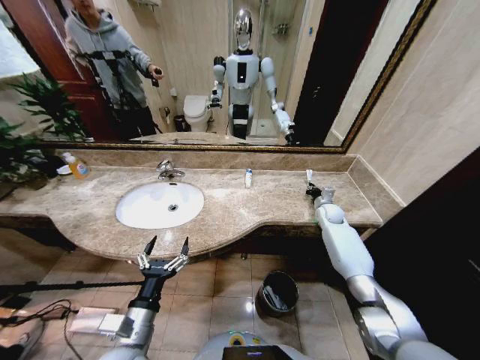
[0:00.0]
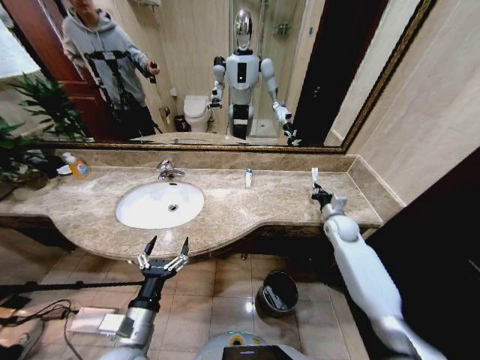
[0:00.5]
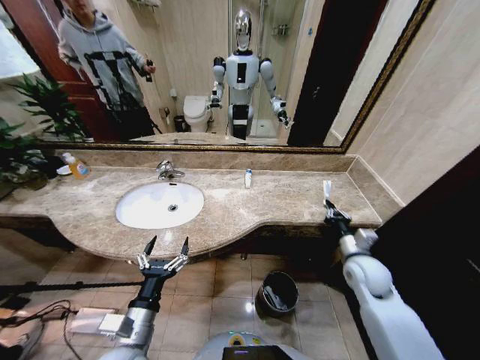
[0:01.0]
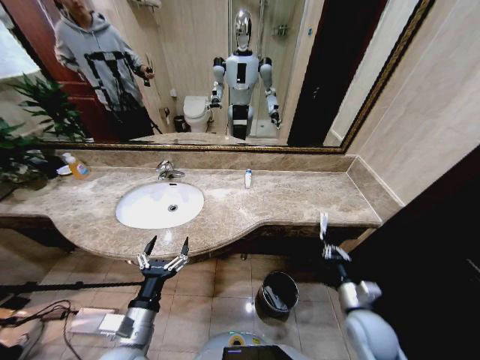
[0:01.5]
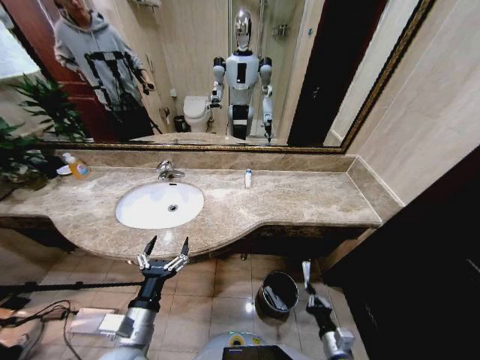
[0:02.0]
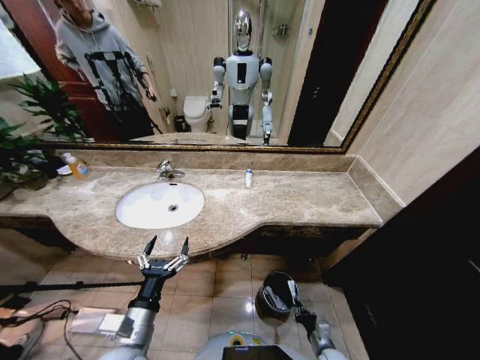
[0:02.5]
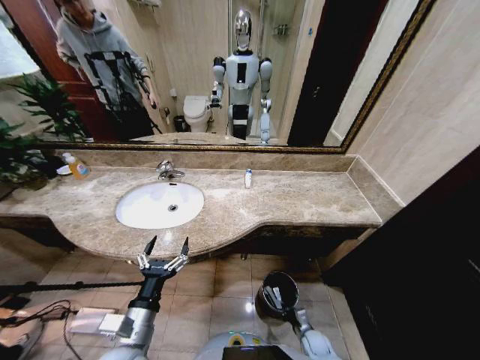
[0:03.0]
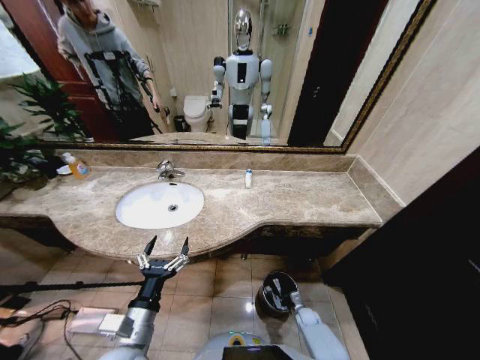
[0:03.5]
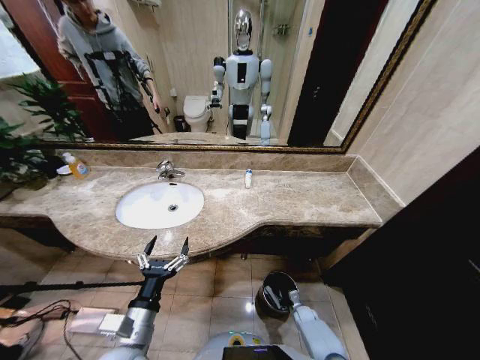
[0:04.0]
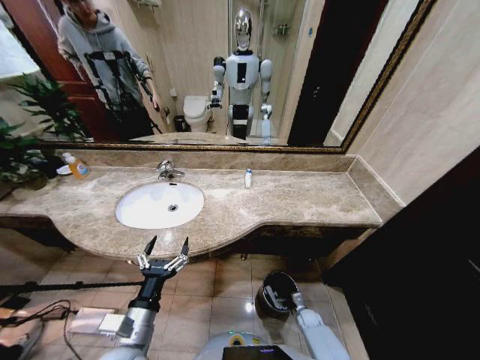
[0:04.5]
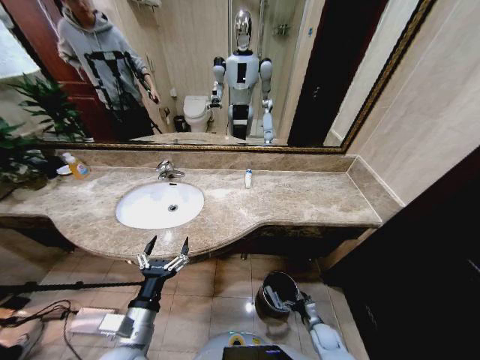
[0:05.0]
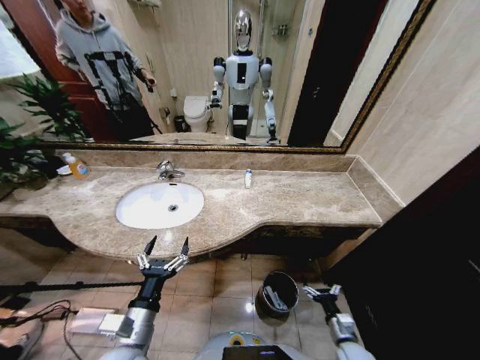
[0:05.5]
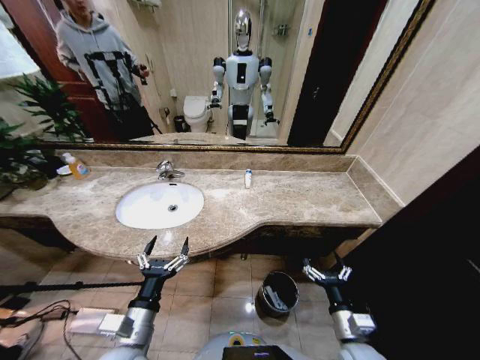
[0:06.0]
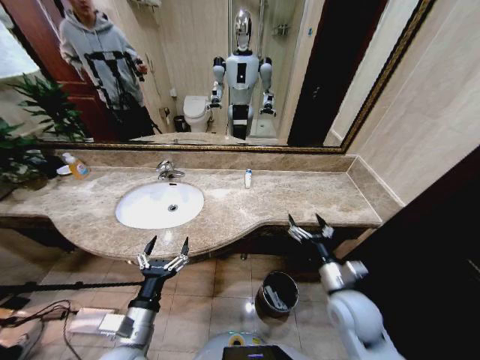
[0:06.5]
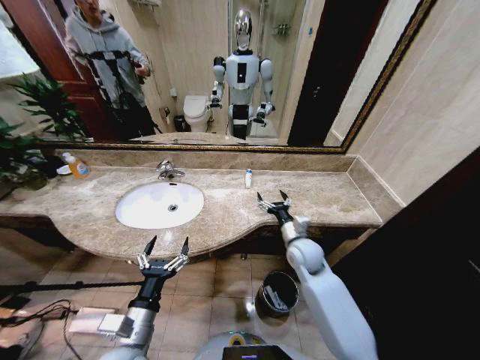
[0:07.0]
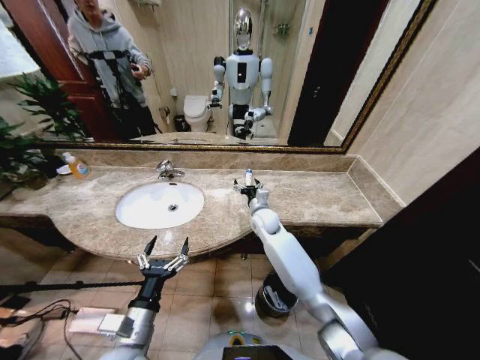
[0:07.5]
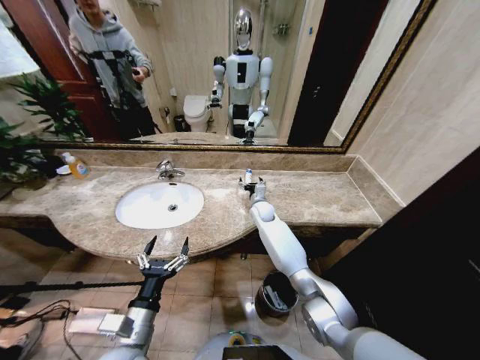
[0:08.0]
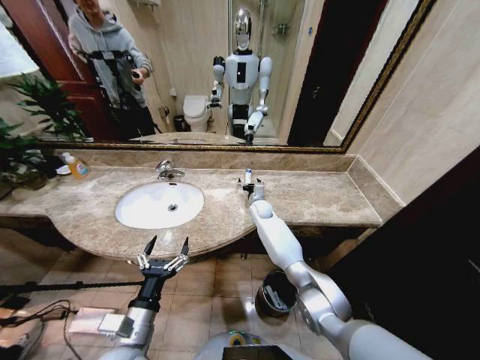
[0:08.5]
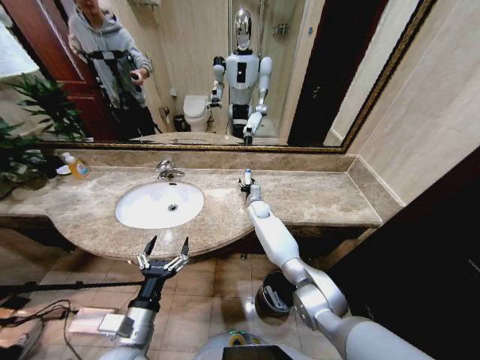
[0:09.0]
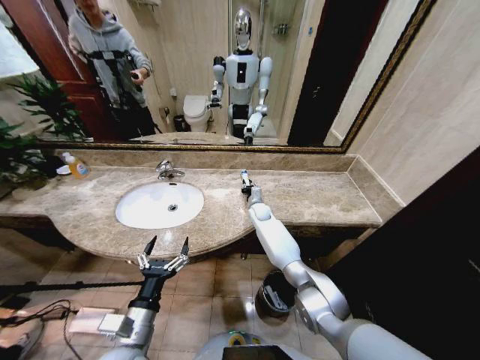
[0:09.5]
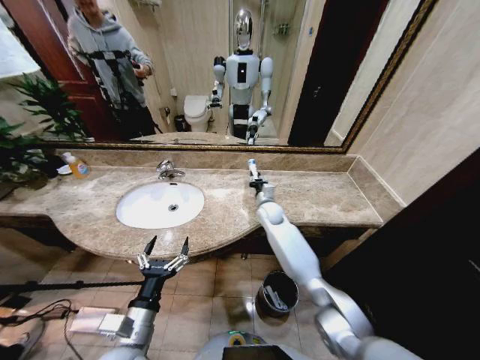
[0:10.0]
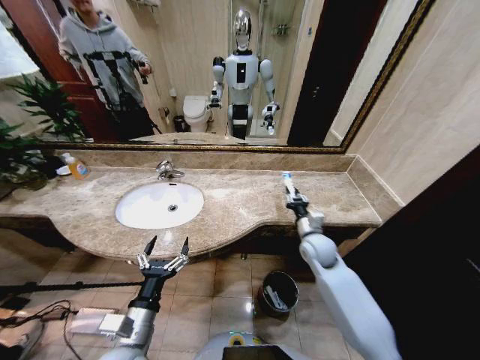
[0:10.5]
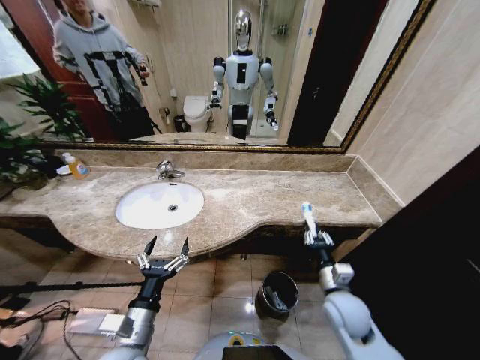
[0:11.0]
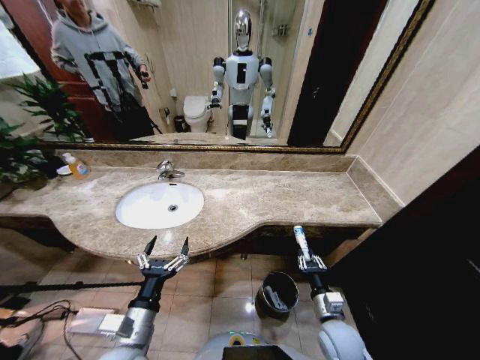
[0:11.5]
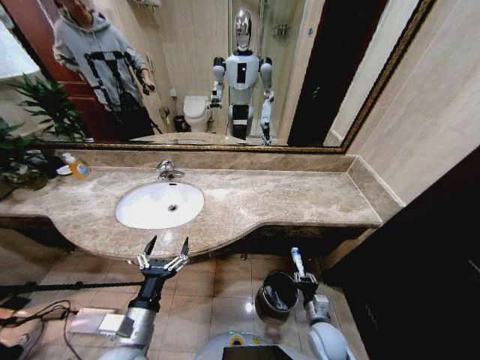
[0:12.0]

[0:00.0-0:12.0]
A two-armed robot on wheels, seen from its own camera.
Task of the whole recording: Pick up the trash from the sink and place it in the trash bin.
0:00.0 to 0:02.0: The right gripper goes about 40 cm backward.
0:02.0 to 0:04.0: The right gripper travels downward and forward by some 25 cm.
0:04.0 to 0:06.0: The right gripper goes about 35 cm upward and backward, and opens its fingers.
0:06.0 to 0:08.0: The right gripper heads forward, covering some 40 cm.
0:08.0 to 0:10.0: The right gripper closes up.
0:10.0 to 0:12.0: The right gripper moves backward and downward, approximately 40 cm.

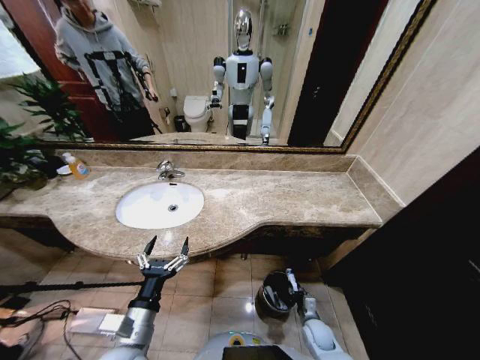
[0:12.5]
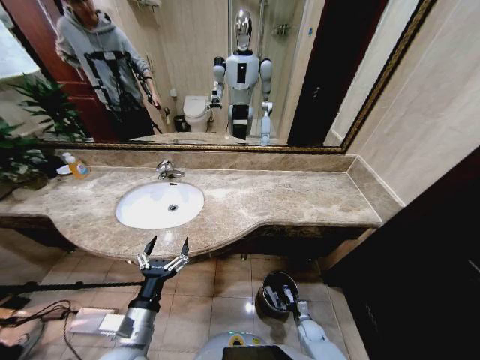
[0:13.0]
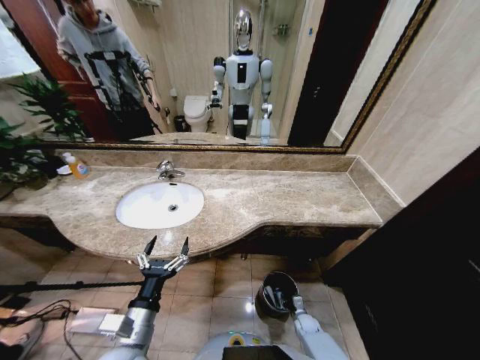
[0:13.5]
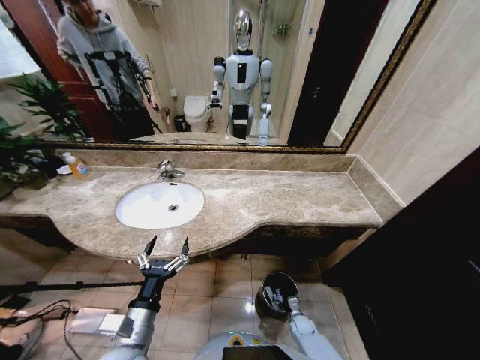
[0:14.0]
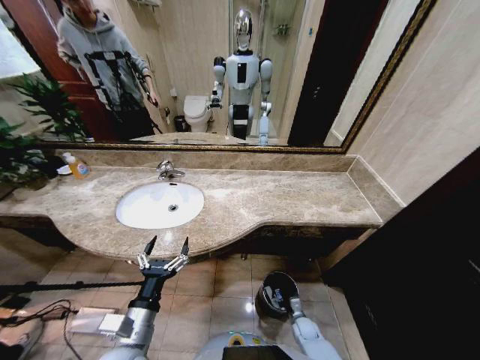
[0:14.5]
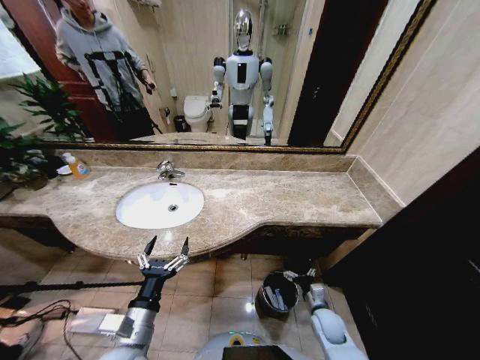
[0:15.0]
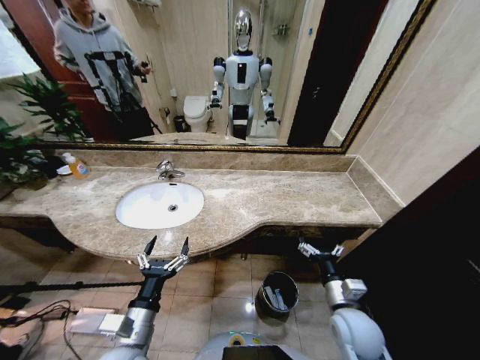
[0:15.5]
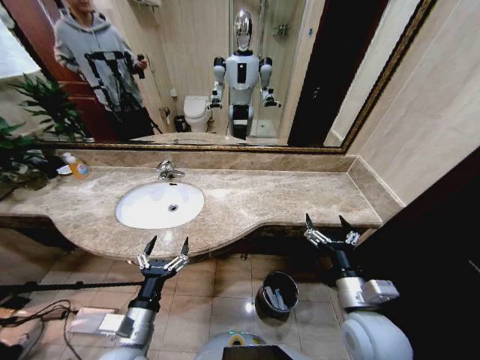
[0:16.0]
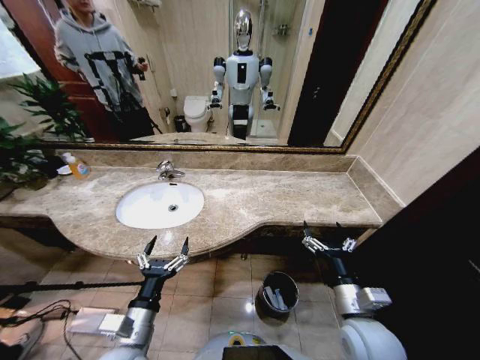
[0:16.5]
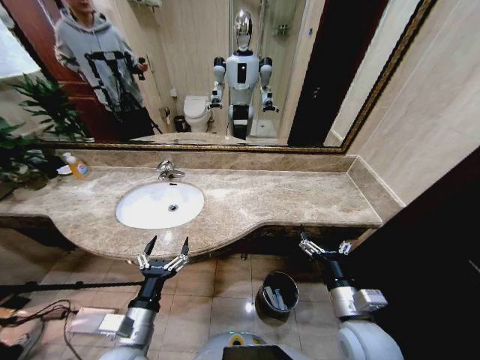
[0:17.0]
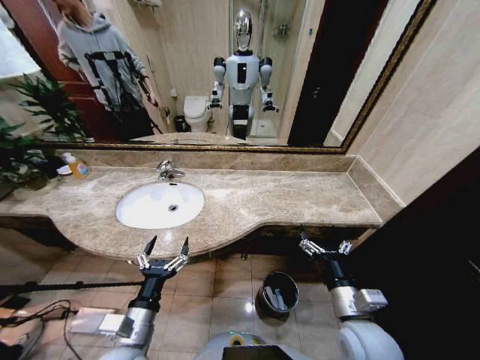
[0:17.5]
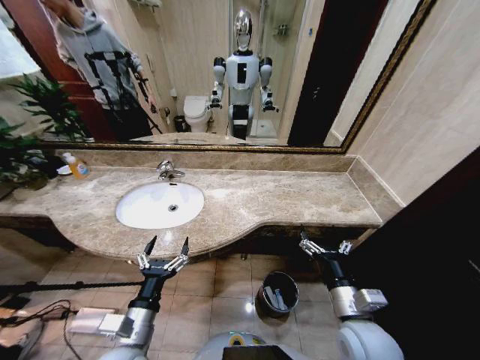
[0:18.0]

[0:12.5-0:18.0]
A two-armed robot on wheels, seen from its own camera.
Task of the whole recording: Pick up the trash from the sink and place it in the trash bin.
0:12.5 to 0:14.5: The right gripper shifts approximately 10 cm downward, and opens.
0:14.5 to 0:16.0: The right gripper heads upward, covering about 40 cm.
0:16.0 to 0:18.0: The grippers make only small movements.

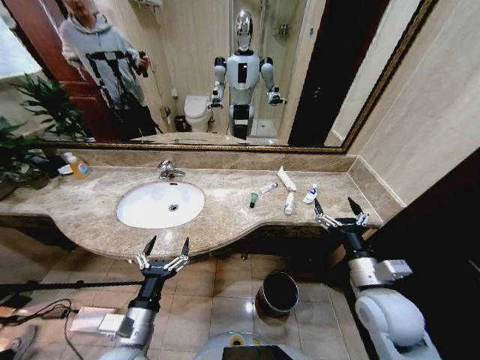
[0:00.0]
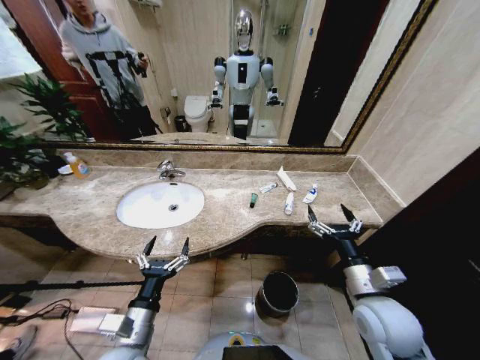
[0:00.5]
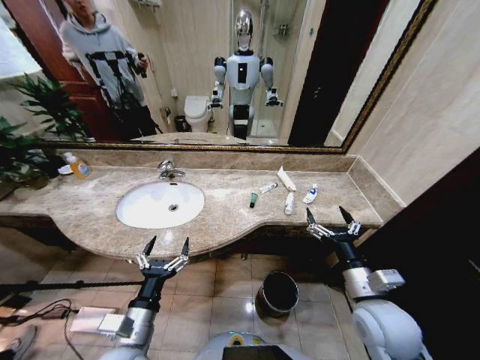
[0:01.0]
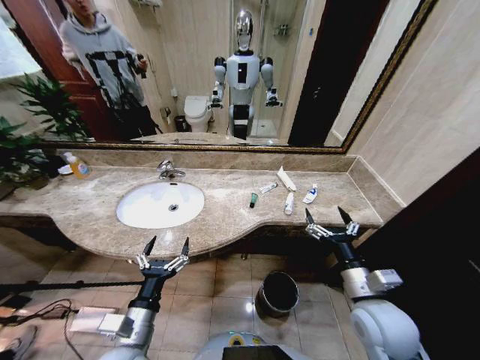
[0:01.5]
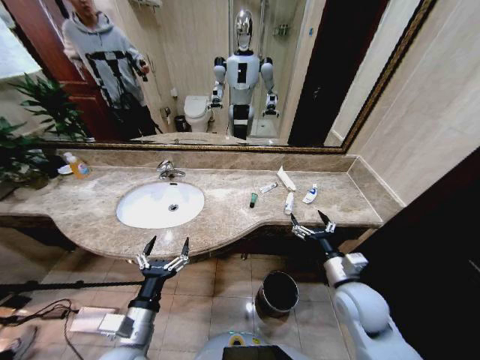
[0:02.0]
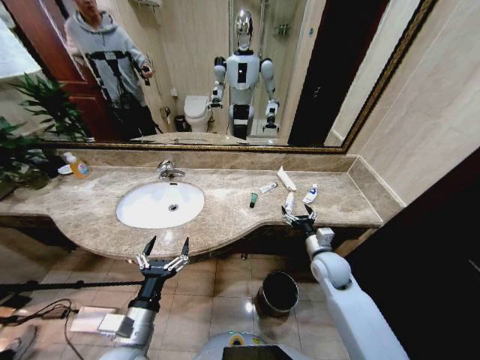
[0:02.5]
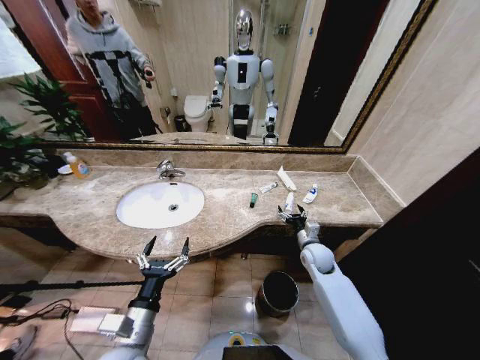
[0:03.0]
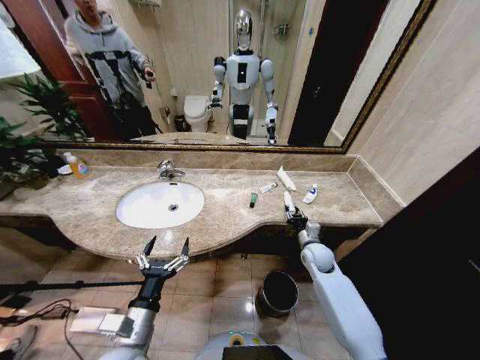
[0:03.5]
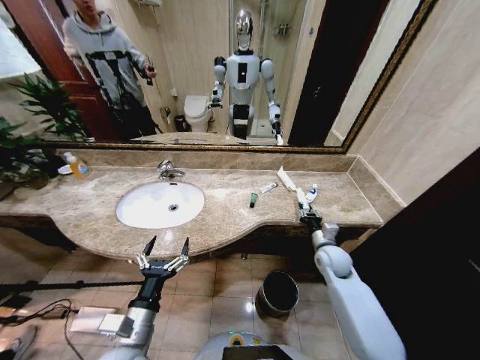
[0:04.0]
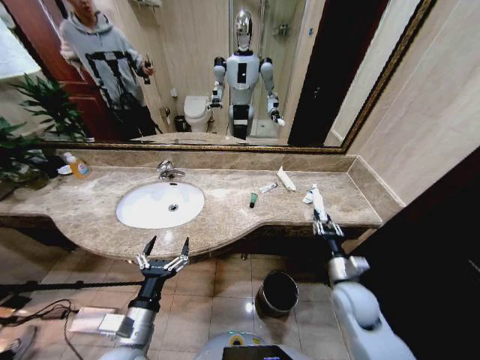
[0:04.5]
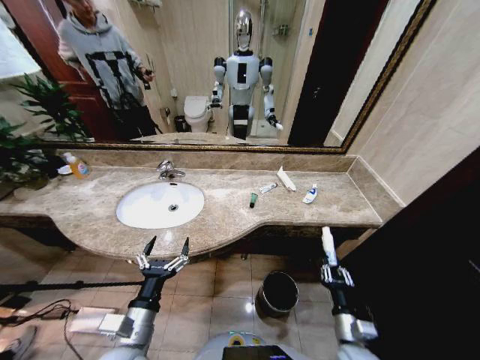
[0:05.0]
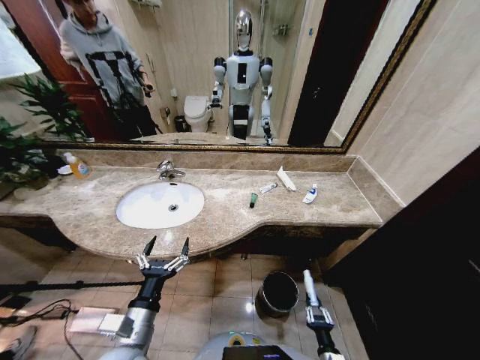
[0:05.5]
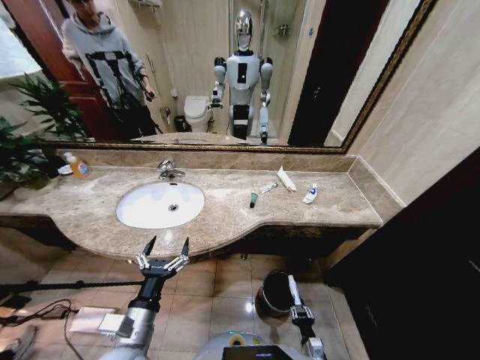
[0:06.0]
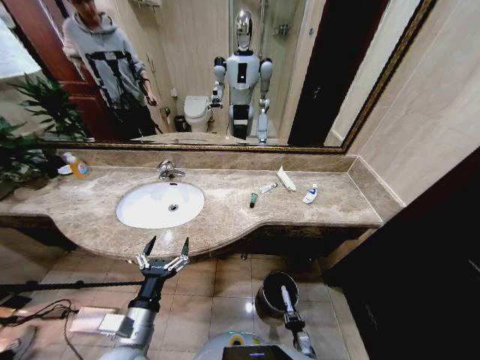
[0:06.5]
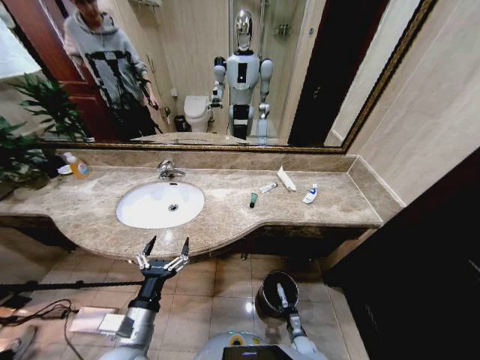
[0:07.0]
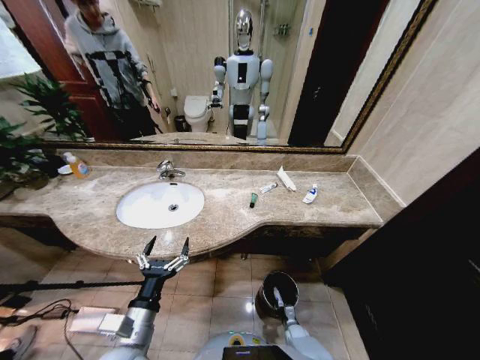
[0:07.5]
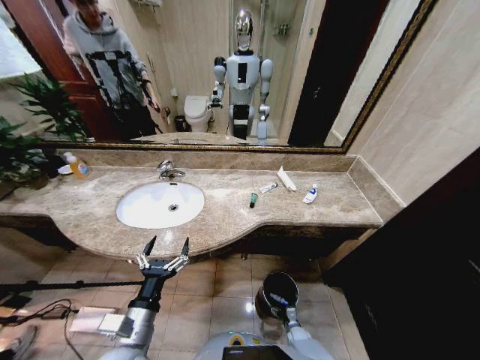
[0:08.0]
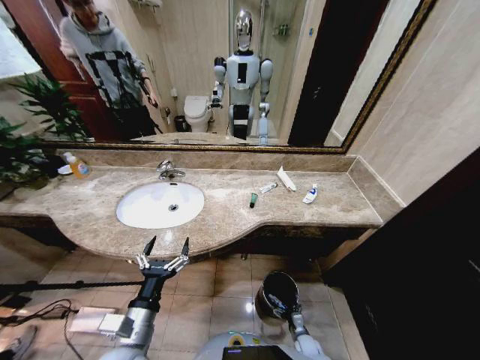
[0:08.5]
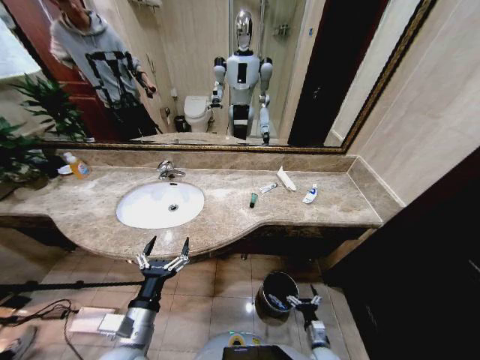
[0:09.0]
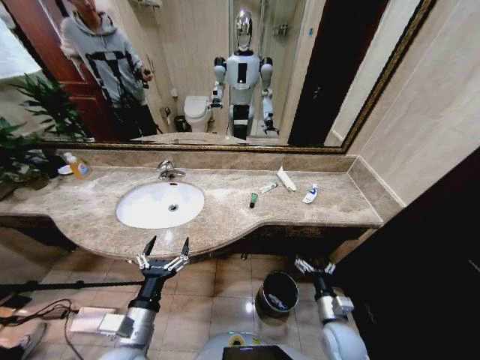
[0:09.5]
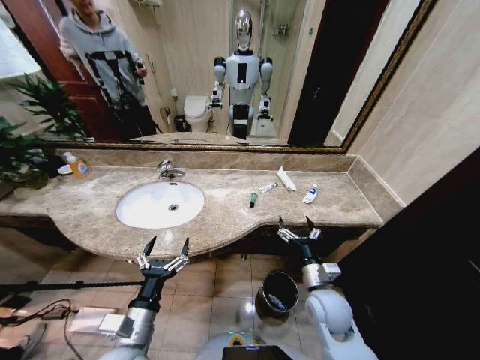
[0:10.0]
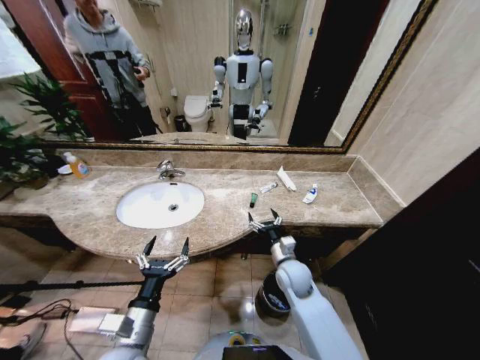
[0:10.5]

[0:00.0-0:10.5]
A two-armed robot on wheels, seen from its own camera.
Task of the whole recording: Pick up the trash from the sink and place it in the trash bin.
0:02.0 to 0:04.0: The right gripper goes about 15 cm forward and downward, and closes up.
0:04.0 to 0:06.5: The right gripper travels downward and backward by about 40 cm.
0:06.5 to 0:08.5: The right gripper is displaced forward by some 5 cm, and opens.
0:08.5 to 0:10.5: The right gripper goes some 35 cm upward and forward.
